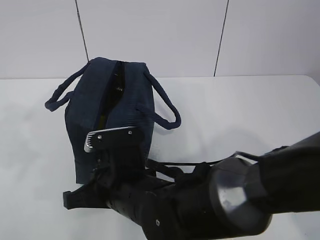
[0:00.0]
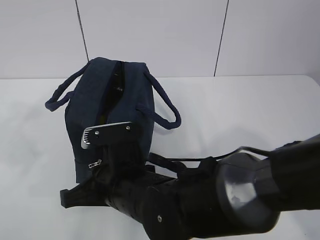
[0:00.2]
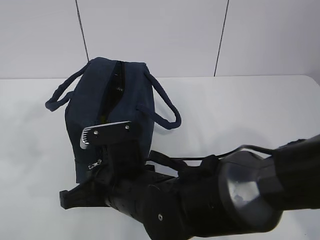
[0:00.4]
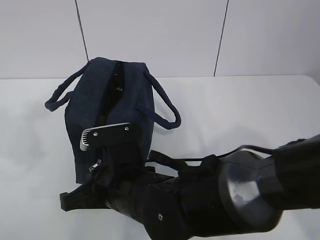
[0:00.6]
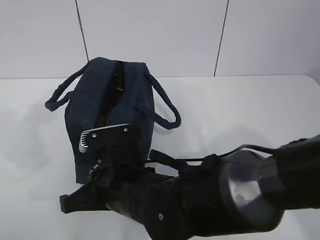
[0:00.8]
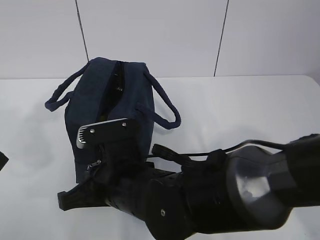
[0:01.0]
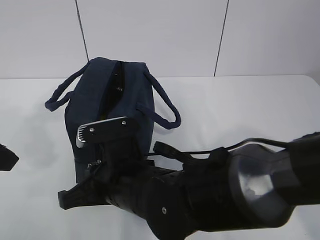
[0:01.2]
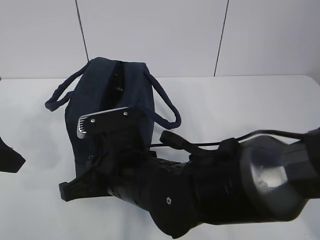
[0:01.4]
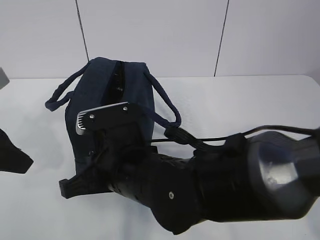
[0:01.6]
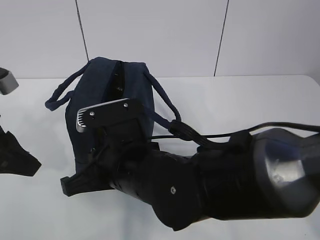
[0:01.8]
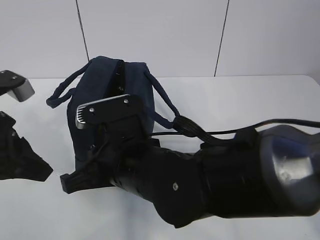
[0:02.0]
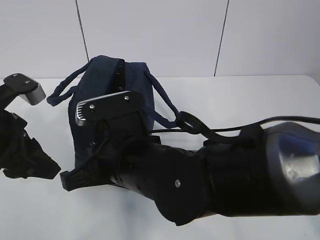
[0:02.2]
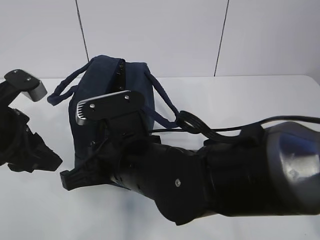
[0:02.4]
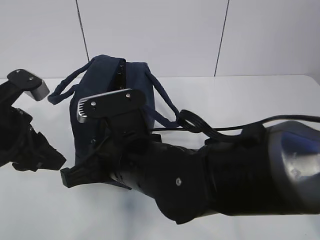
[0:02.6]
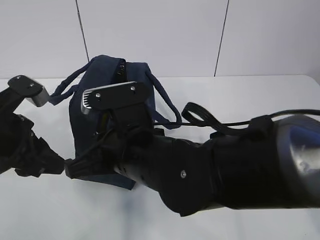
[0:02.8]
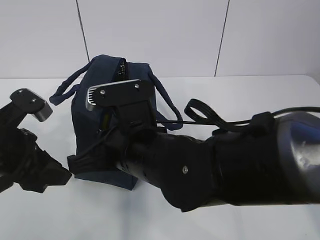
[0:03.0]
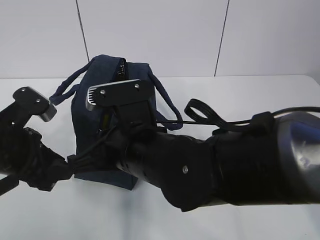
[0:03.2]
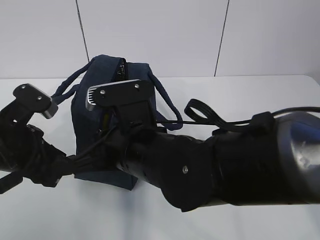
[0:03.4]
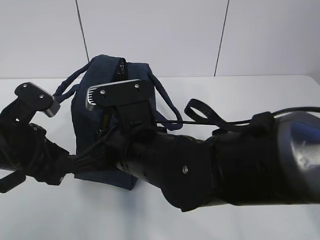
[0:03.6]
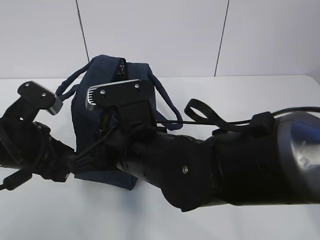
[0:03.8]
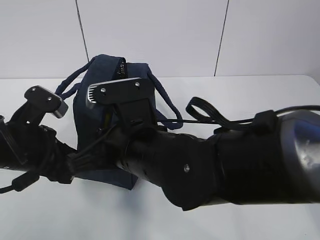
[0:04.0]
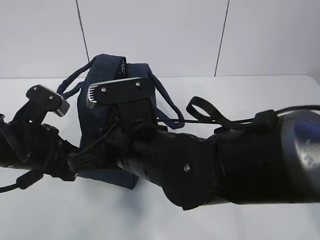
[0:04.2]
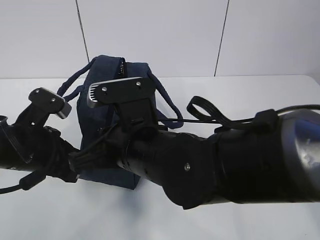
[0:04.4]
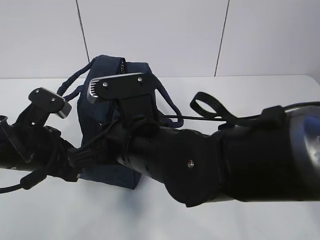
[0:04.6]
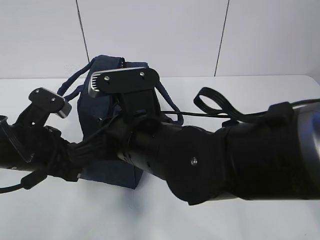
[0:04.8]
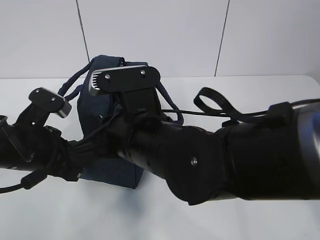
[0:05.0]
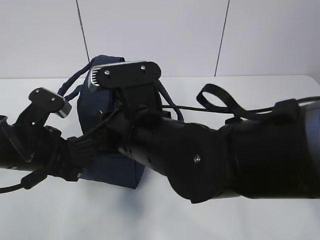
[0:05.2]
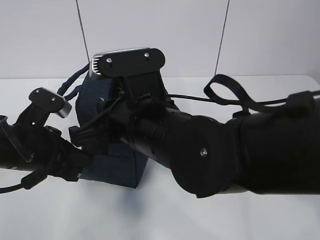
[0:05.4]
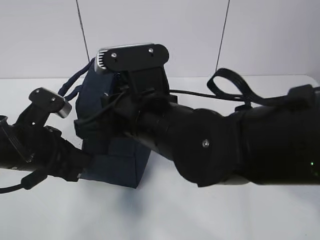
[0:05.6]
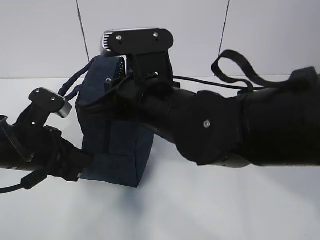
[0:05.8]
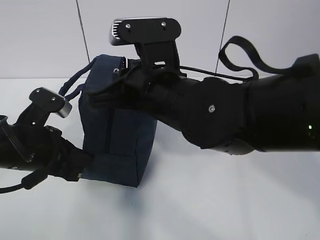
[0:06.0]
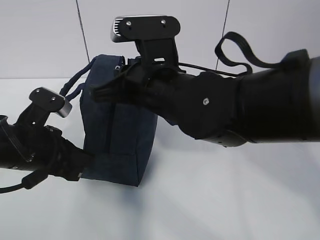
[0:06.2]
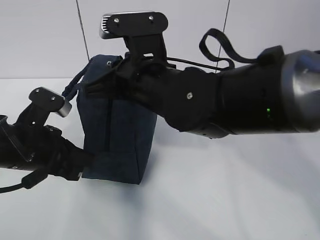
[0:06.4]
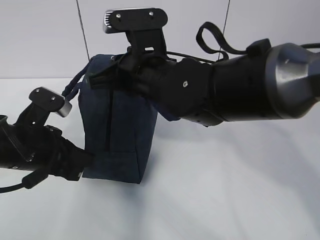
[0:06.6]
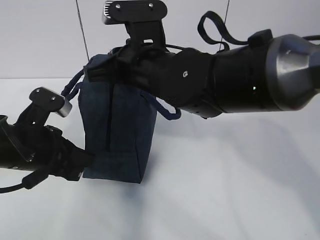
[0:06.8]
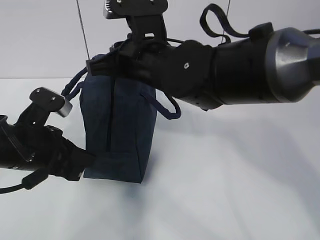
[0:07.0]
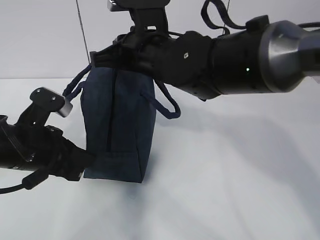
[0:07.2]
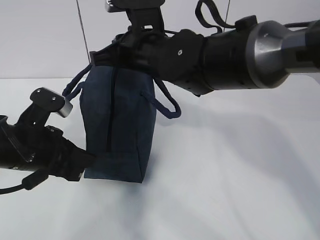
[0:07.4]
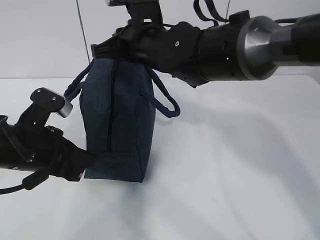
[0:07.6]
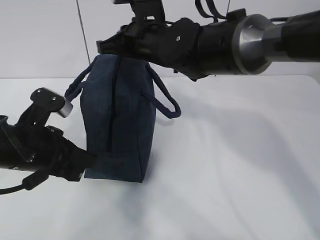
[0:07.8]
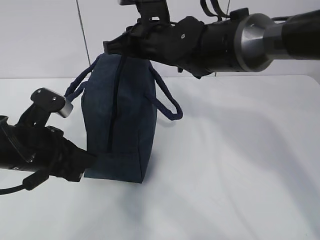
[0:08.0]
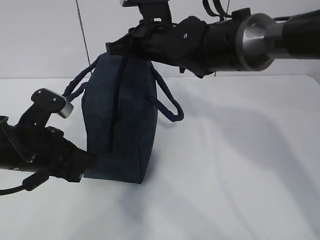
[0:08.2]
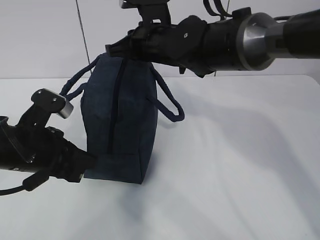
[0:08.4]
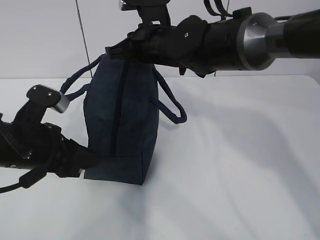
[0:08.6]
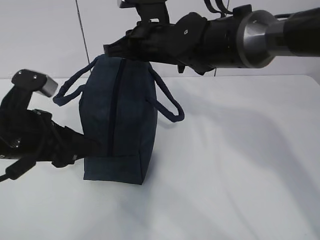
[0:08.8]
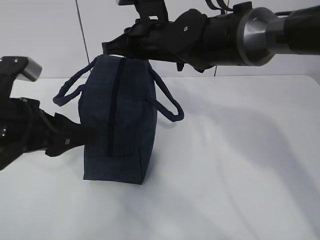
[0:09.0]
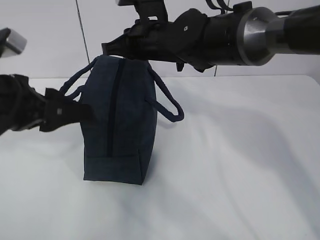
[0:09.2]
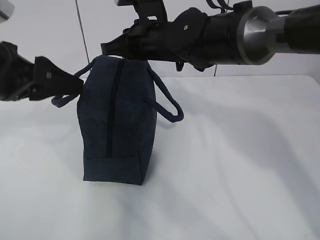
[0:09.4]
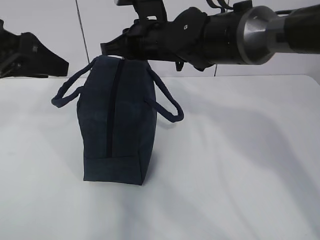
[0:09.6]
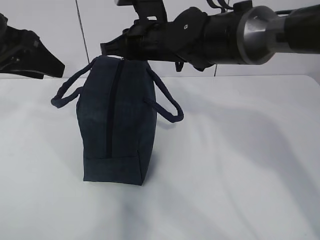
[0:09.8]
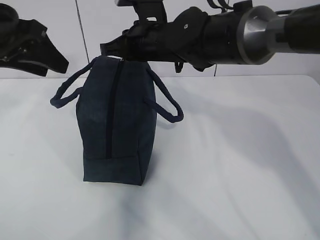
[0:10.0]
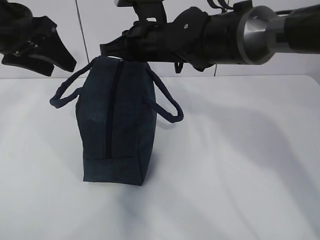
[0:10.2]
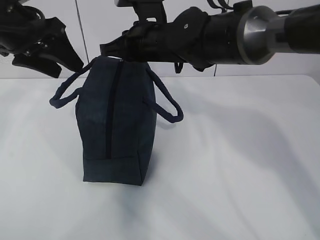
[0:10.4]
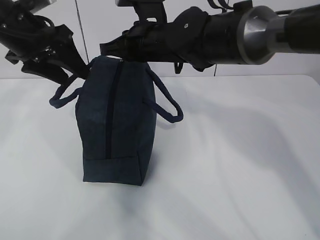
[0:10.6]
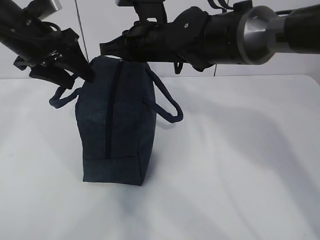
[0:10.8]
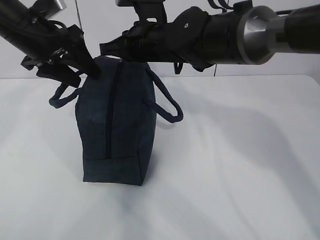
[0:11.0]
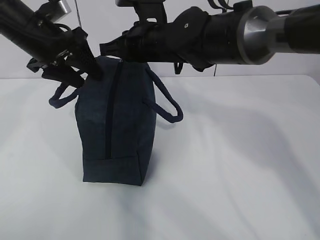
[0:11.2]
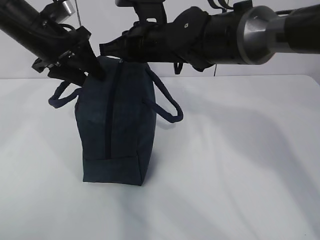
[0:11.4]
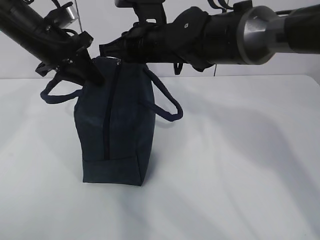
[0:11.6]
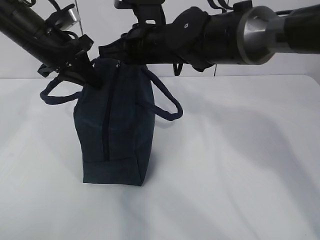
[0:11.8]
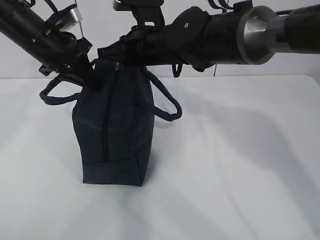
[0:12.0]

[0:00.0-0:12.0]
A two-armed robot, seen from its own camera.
Step, 0:00.0 to 0:04.2: Pull the zipper with your right hand.
0:00.0 to 0:01.6: The left gripper moves forward and downward, approximately 15 cm.
0:01.6 to 0:03.0: The left gripper travels downward by approximately 5 cm.
0:03.0 to 0:04.4: The left gripper closes.
0:04.4 to 0:06.0: The right gripper heads upward, covering about 5 cm.
0:06.0 to 0:07.6: The right gripper heads forward, covering some 10 cm.
0:07.6 to 0:09.0: The left gripper heads upward, covering some 5 cm, and opens.
0:09.0 to 0:10.4: The left gripper goes roughly 15 cm forward and upward.
0:10.4 to 0:12.0: The left gripper is displaced downward by some 5 cm, and closes up.

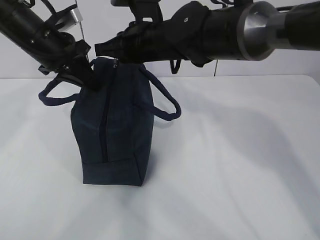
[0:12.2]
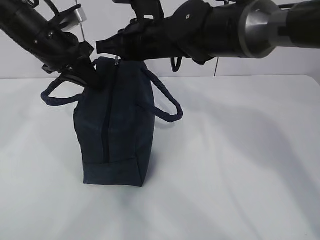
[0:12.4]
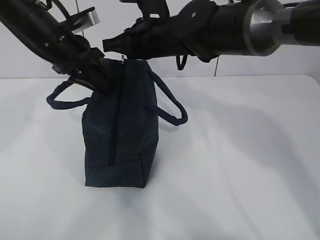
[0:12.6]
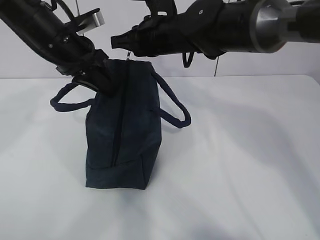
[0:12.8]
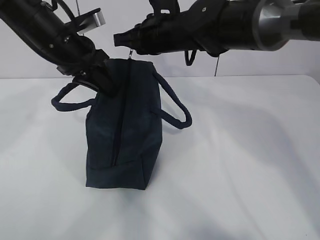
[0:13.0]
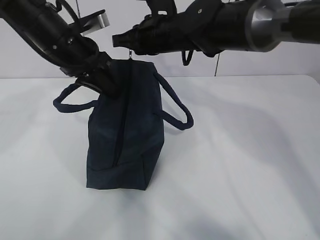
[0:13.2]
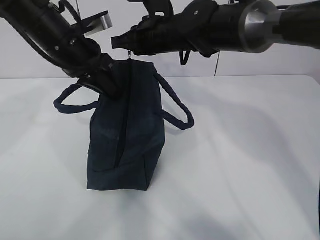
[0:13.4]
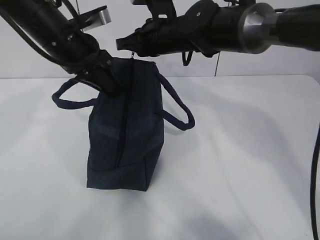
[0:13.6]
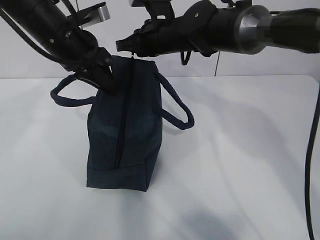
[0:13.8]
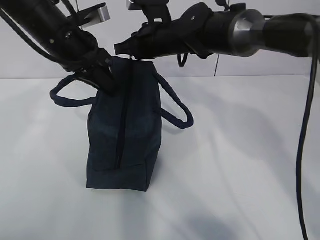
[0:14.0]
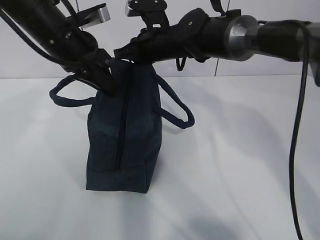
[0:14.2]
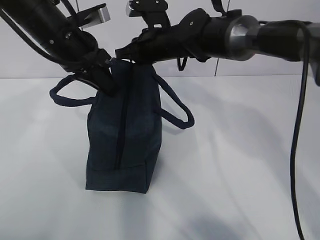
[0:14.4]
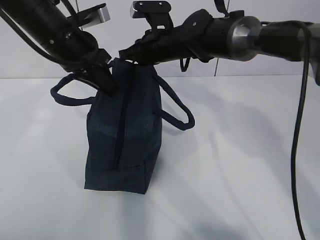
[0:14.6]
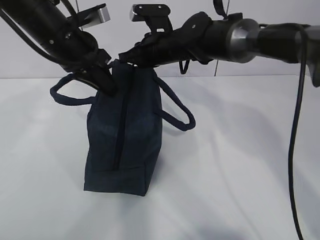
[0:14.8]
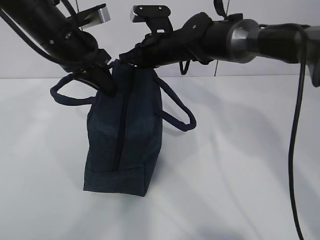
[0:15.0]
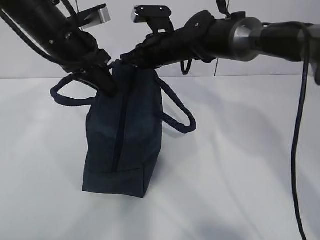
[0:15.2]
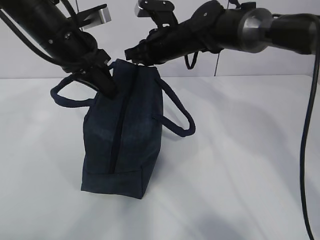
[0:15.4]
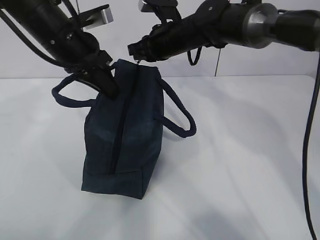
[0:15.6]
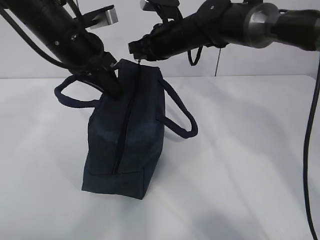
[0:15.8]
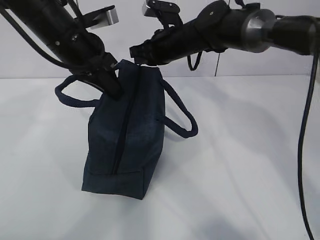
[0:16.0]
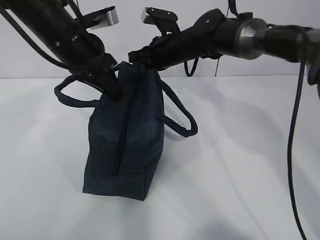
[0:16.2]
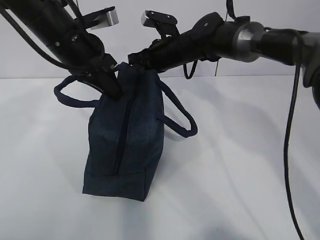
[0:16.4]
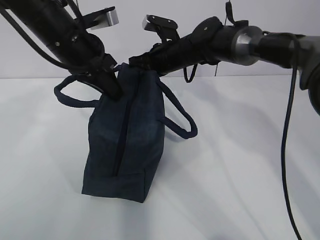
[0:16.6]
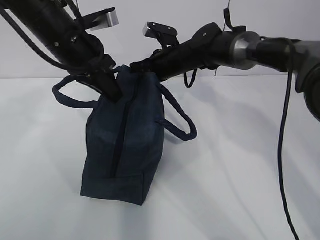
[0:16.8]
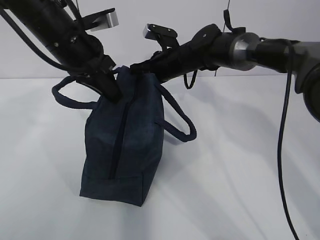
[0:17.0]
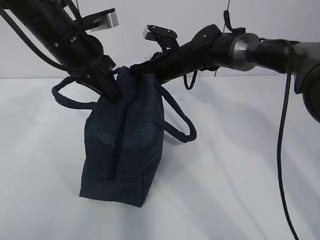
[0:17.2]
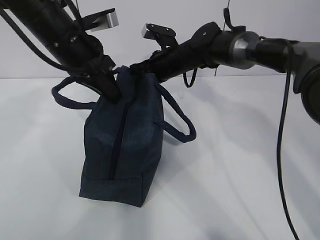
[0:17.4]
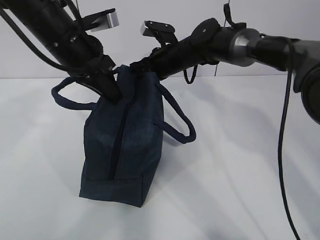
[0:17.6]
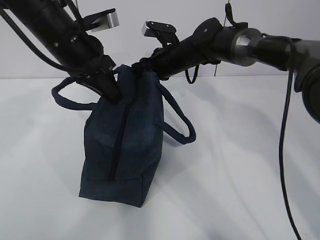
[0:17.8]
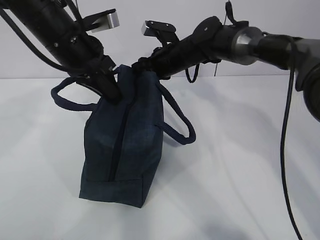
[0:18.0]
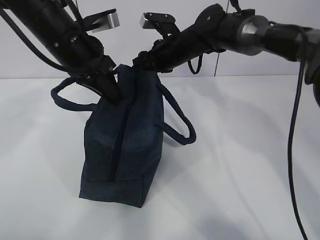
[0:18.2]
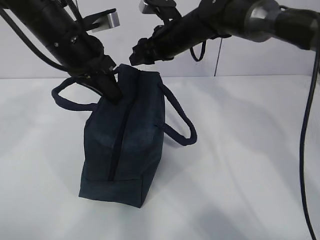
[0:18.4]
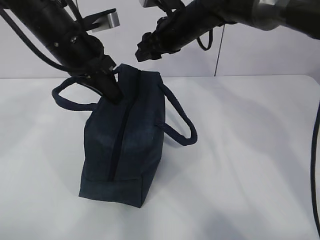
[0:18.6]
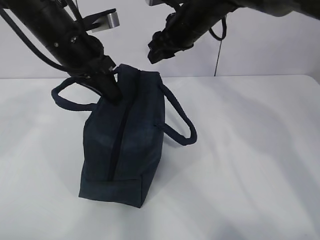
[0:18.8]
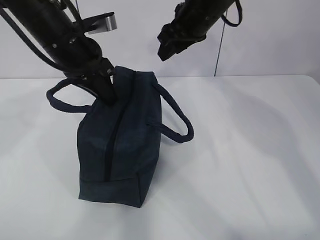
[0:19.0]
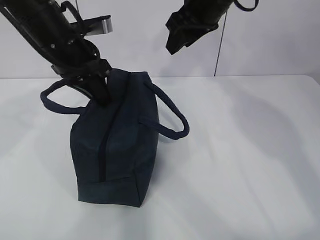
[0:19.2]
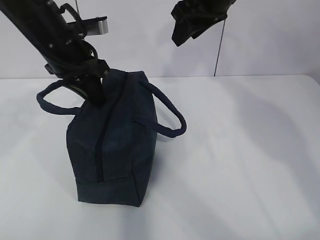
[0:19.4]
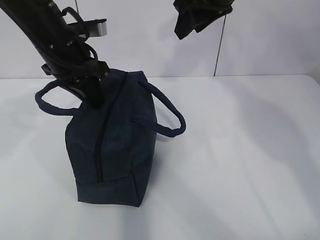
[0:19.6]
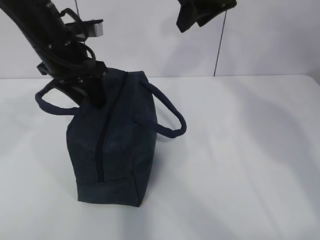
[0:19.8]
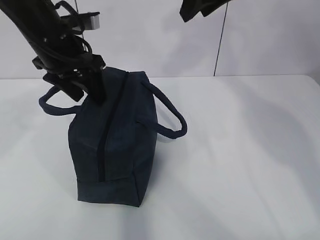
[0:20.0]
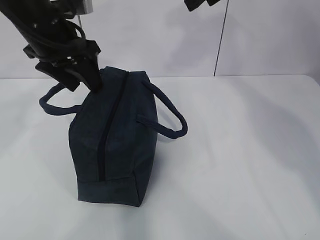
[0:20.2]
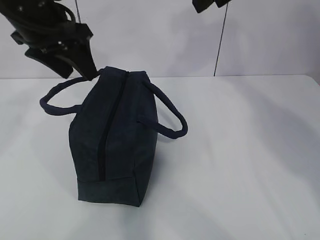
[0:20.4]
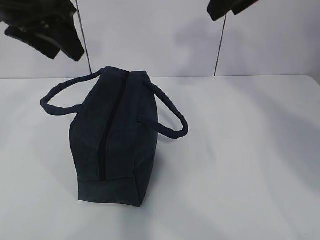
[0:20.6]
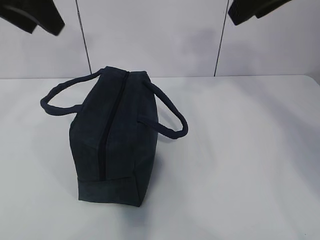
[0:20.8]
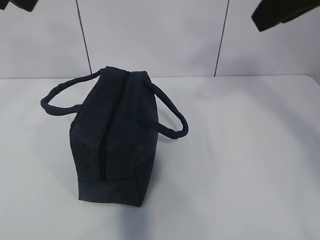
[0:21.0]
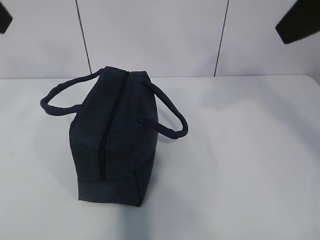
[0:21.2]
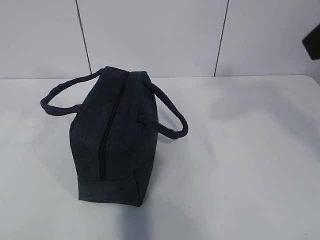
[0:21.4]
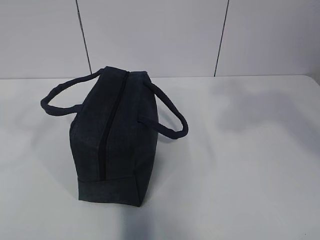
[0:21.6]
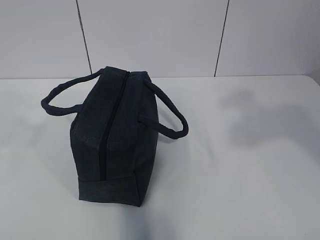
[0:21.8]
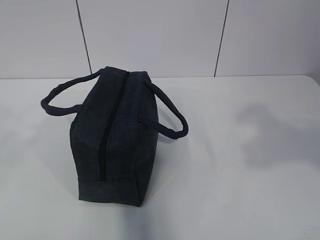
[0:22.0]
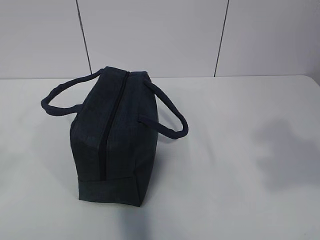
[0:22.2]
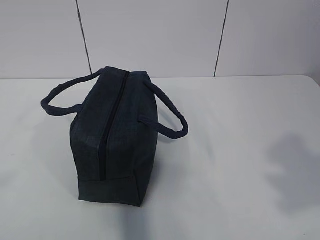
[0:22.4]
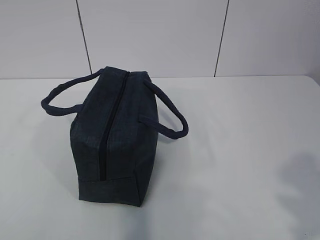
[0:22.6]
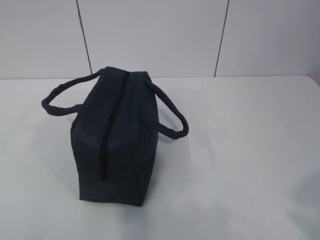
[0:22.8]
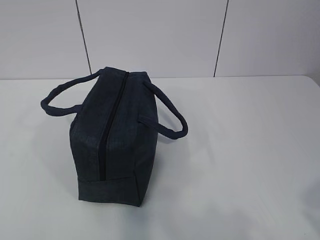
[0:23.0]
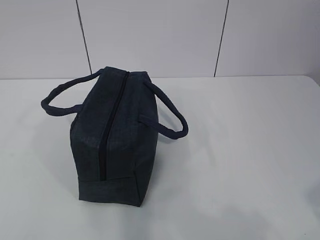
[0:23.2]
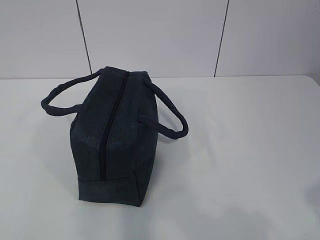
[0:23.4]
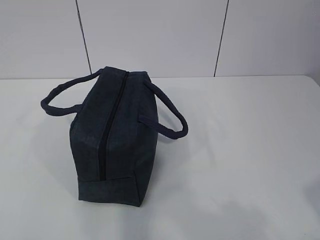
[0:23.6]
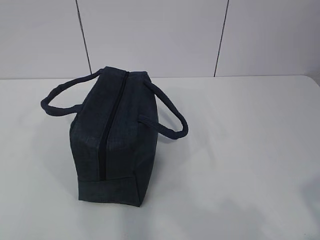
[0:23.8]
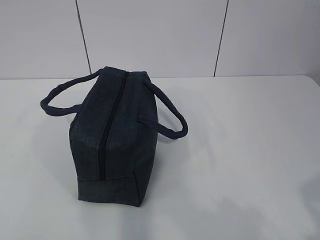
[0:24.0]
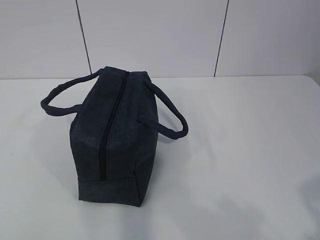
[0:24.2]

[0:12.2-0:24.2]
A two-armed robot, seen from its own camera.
0:12.2 to 0:13.8: The left gripper moves some 5 cm. The right gripper goes approximately 5 cm forward.
0:13.8 to 0:15.2: The grippers make only small movements.
0:15.2 to 0:16.6: There are only small adjustments of the grippers.
0:16.6 to 0:18.2: The right gripper opens up.
0:18.2 to 0:19.8: The right gripper goes about 20 cm upward and backward. The left gripper opens its fingers.
0:19.8 to 0:21.2: The right gripper travels backward by some 20 cm. The left gripper heads upward and backward, covering approximately 20 cm.
0:21.2 to 0:22.6: Both grippers move backward, about 25 cm.
